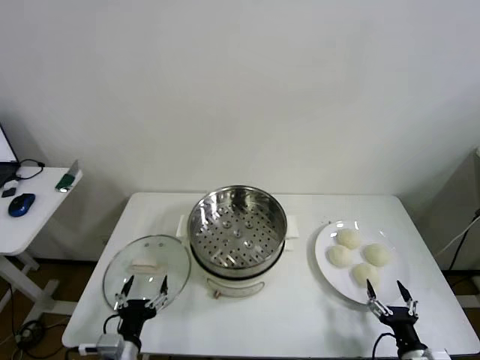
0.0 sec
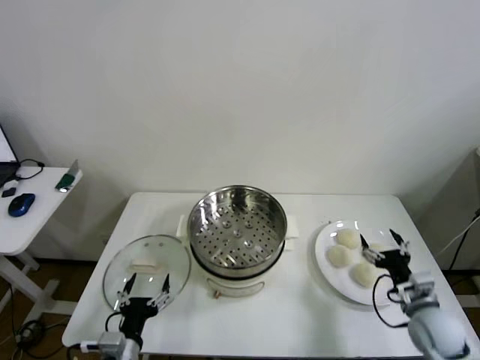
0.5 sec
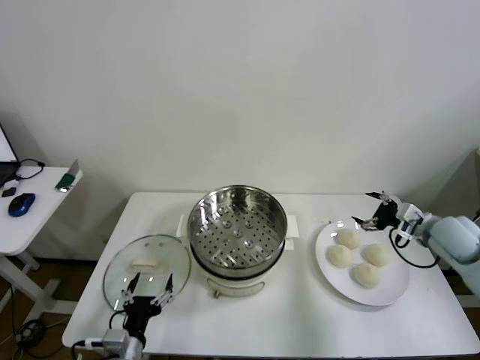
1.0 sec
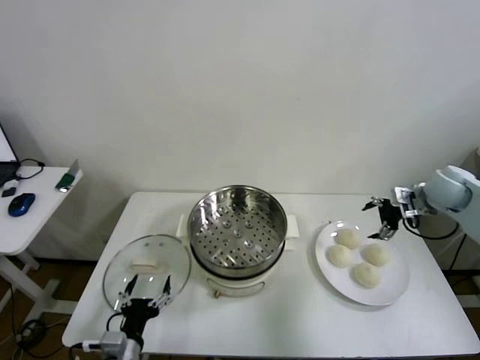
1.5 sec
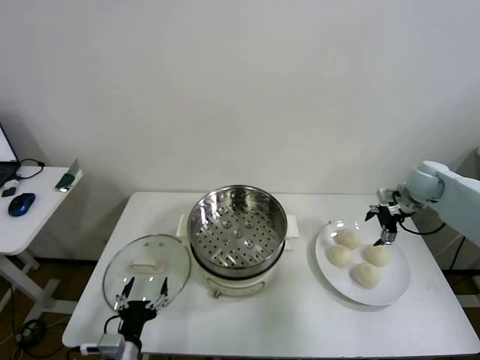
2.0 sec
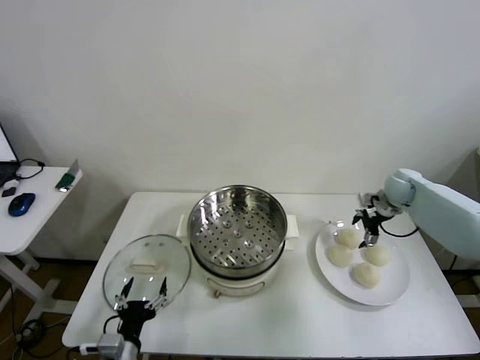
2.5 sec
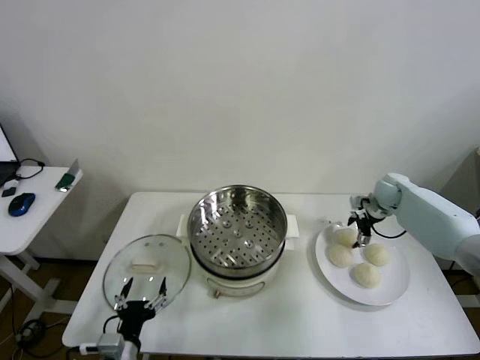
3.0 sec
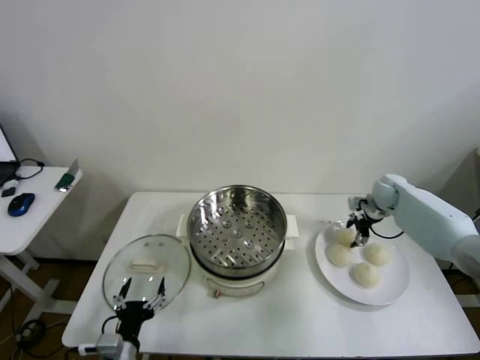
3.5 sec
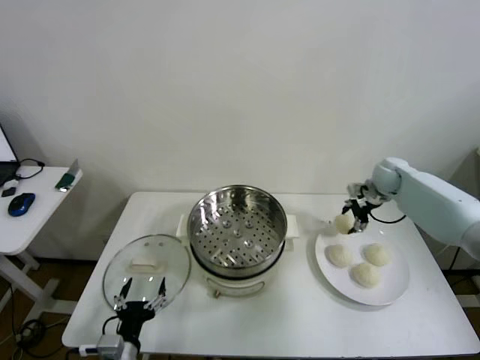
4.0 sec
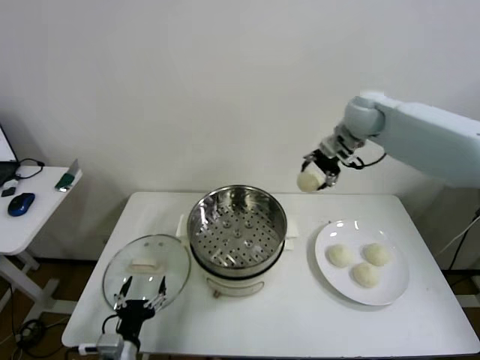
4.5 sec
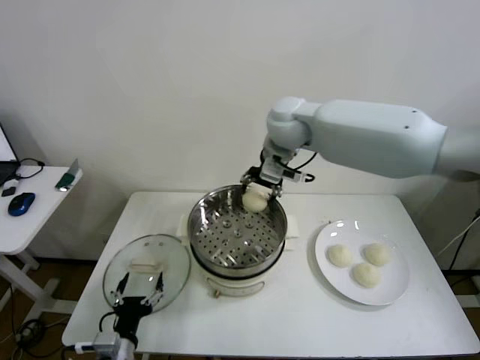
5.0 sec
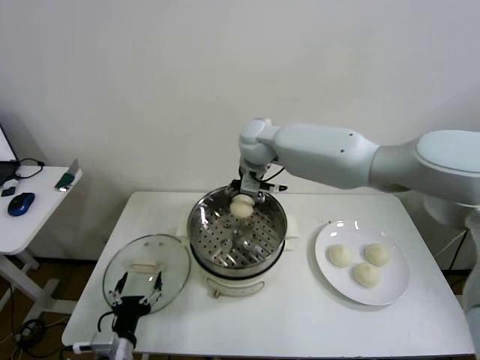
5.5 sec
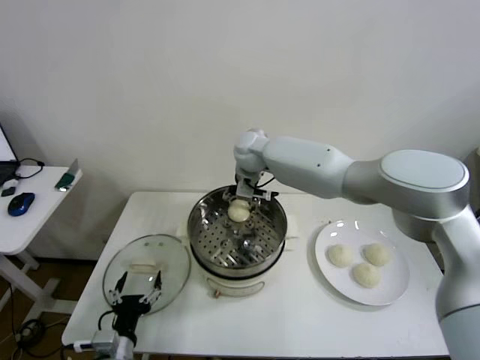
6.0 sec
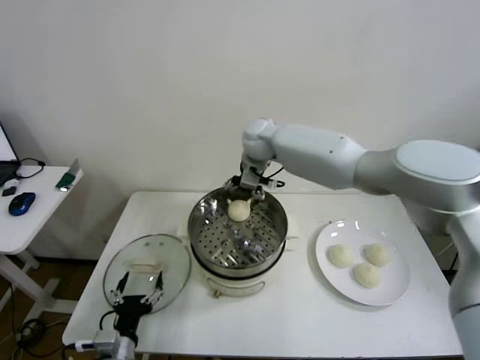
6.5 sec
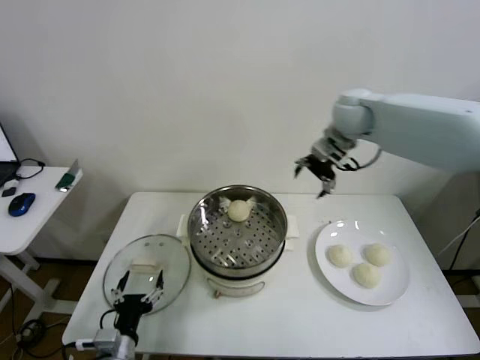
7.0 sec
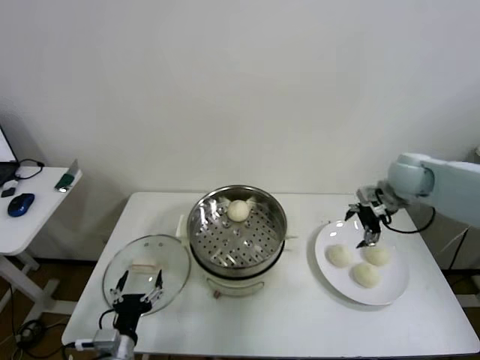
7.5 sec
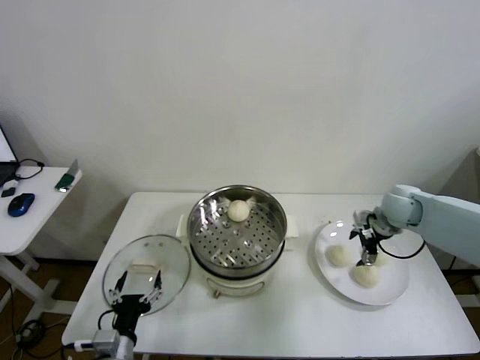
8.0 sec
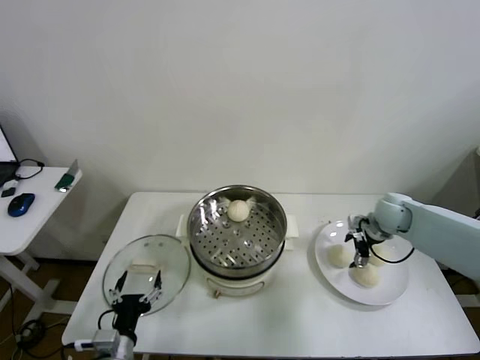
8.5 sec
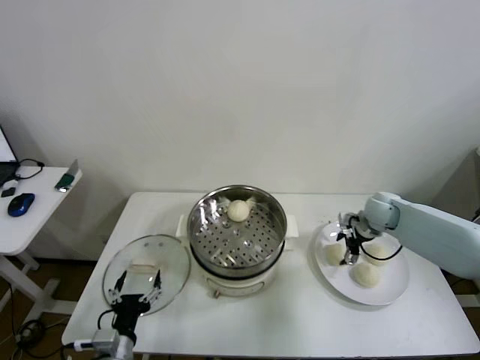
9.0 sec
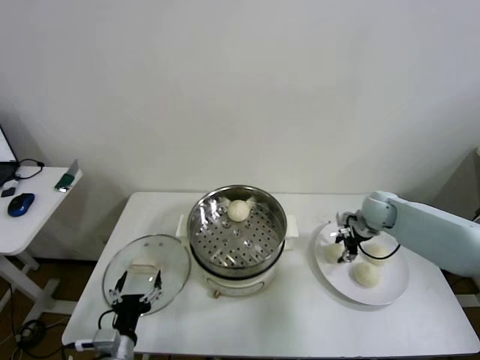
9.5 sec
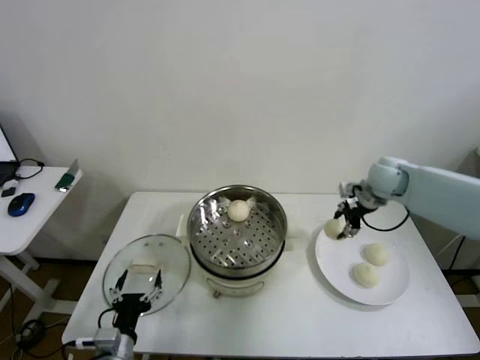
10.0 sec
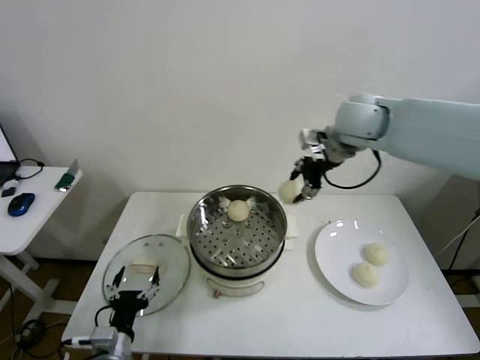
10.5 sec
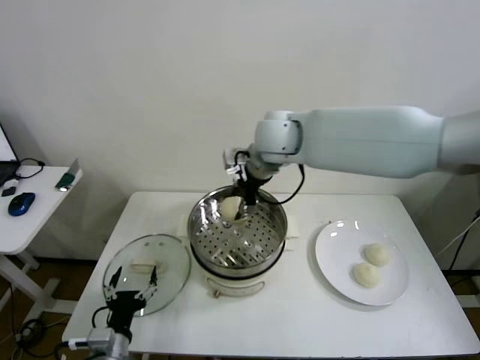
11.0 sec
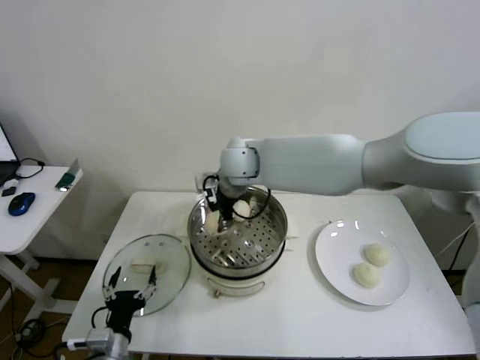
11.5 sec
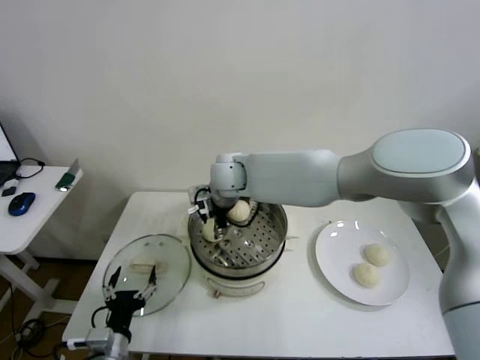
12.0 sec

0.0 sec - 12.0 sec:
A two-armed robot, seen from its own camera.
Step, 0.0 sec - 3.0 sec: Grasp the baozi in the plate with right gripper.
Step, 3.5 sec - 6.0 sec: Place the baozi on the steamer with right gripper.
Step, 7.0 sec - 9.0 sec: Grasp the baozi in the plate with right gripper.
2.0 sec - 4.0 sec: The right gripper shifts approximately 10 cm forward and to the left, goes downward and returns, about 10 cm each way, and closes.
4.0 sec - 6.0 sec: The right gripper moves to the left, about 35 cm, and opens its fingers.
6.0 sec - 8.0 sec: The right gripper heads to the right, covering approximately 35 cm.
8.0 sec - 10.0 sec: The right gripper moves about 5 cm, and closes its fingers.
10.0 sec - 12.0 sec: The right gripper shifts about 40 cm to the left.

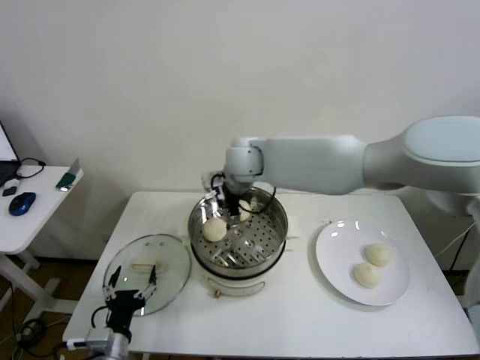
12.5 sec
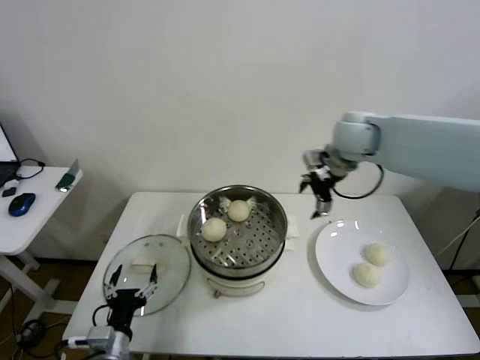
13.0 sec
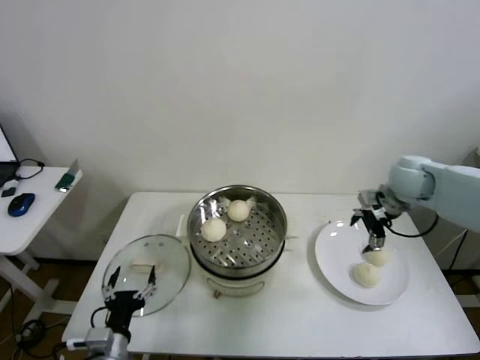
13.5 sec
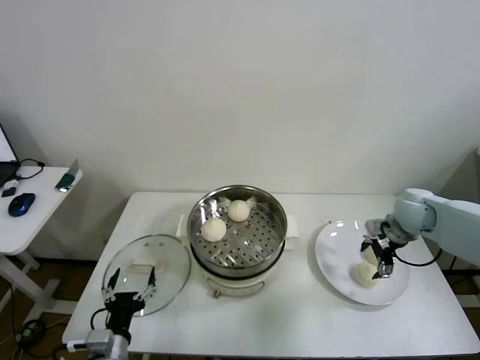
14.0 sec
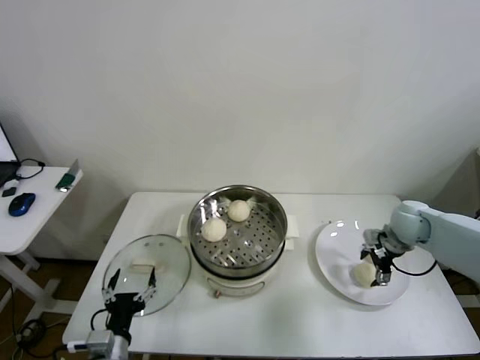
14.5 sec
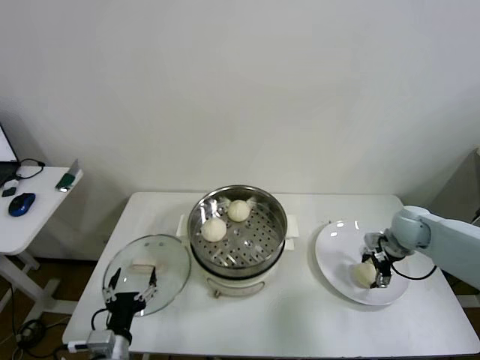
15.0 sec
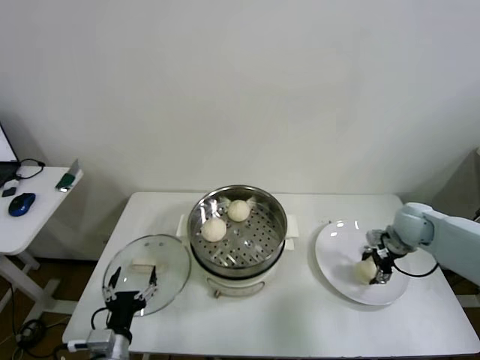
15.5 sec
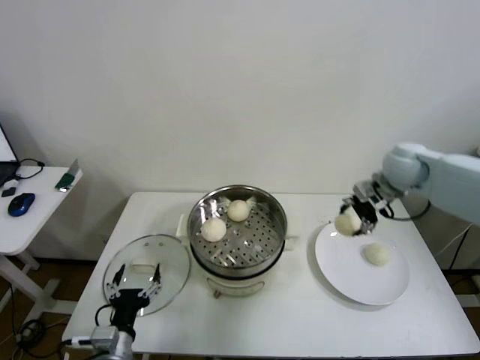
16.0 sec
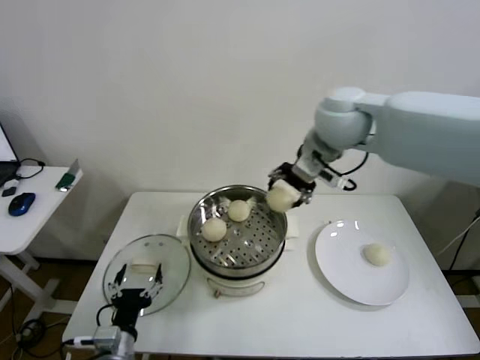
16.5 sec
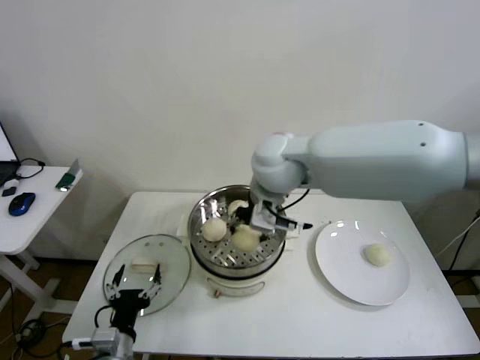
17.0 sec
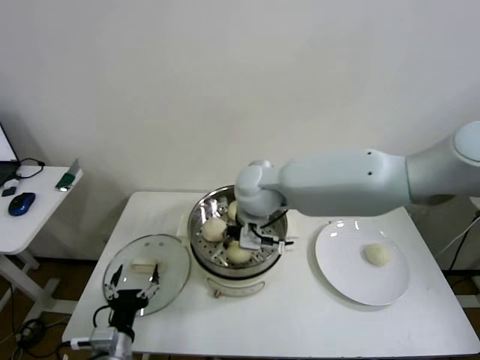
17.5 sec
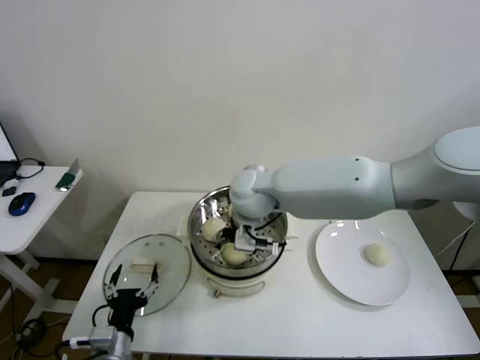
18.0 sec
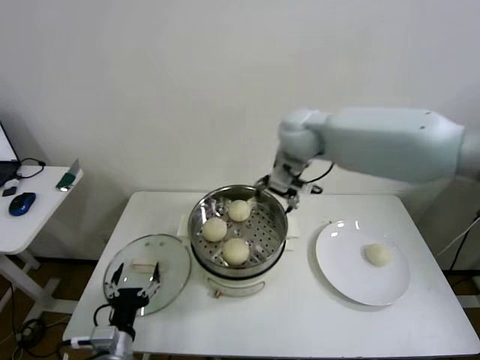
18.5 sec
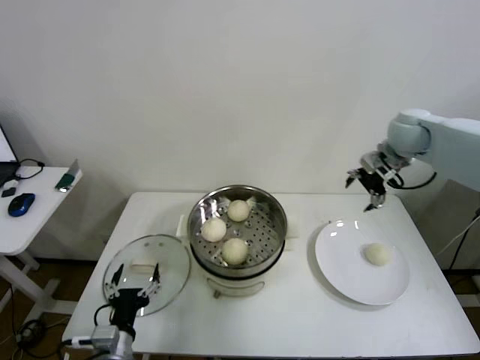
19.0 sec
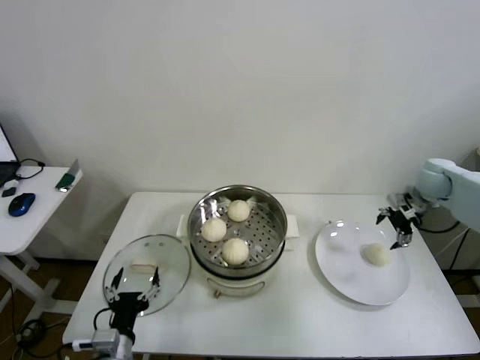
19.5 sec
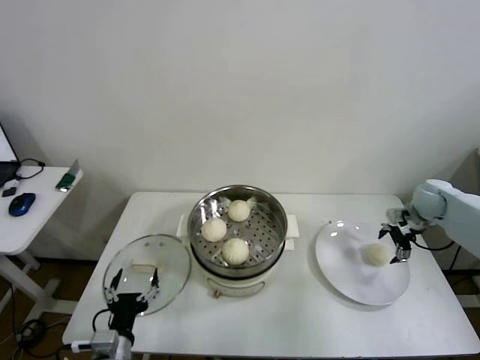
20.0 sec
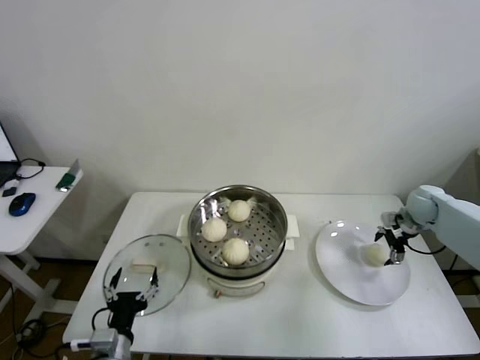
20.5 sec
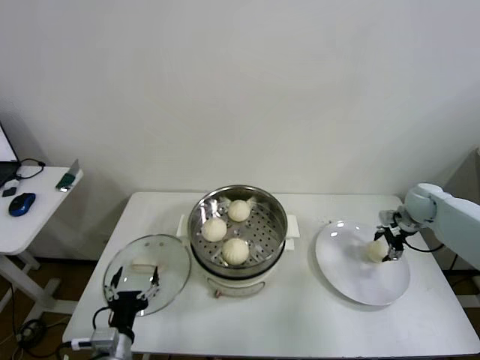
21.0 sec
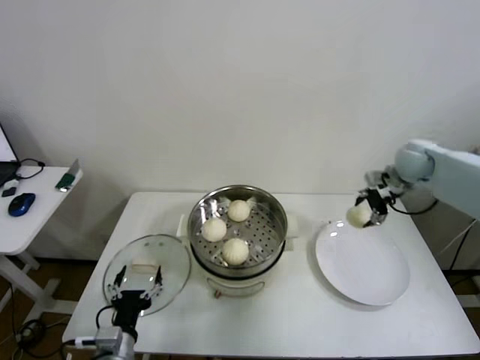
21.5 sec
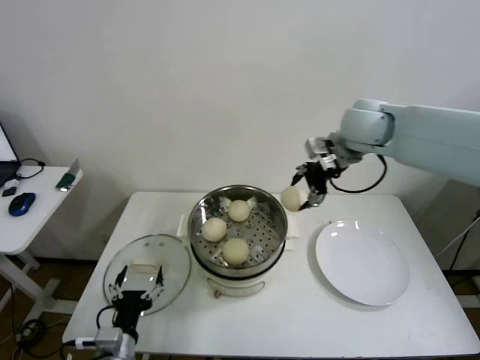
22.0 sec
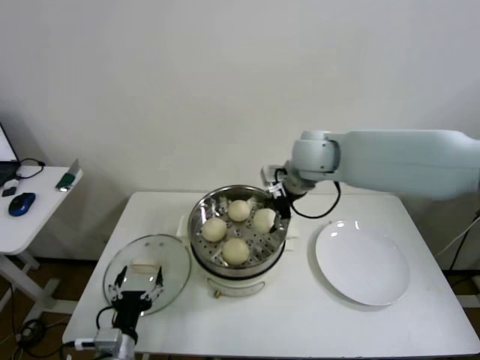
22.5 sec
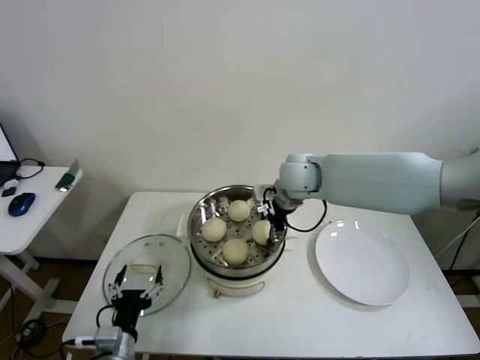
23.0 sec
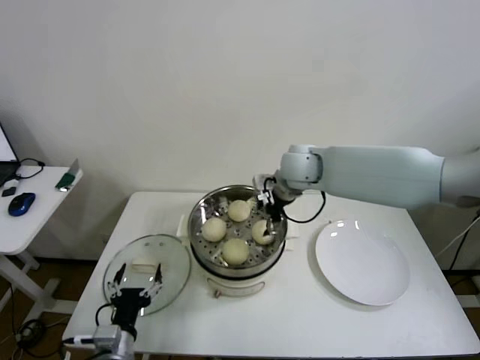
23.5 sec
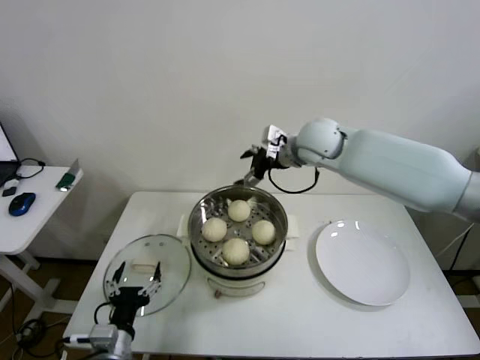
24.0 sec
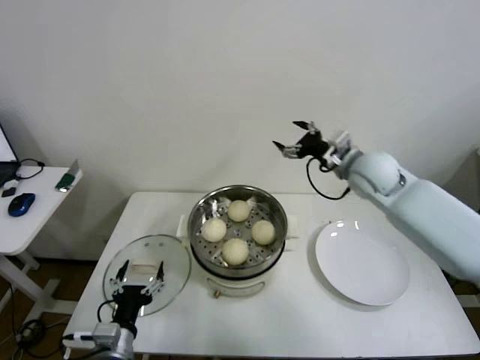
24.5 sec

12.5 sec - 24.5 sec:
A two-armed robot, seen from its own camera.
Step, 12.5 sec - 15.0 sec: Grasp the baozi in the plate with right gripper.
Step, 15.5 sec - 18.0 sec: Place the baozi on the steamer with right gripper.
Step, 18.5 sec - 20.5 sec: Grasp the baozi in the plate with right gripper.
Step, 21.0 sec - 23.0 sec: Place the baozi on the steamer with right gripper.
12.5 sec - 14.5 sec: The right gripper shifts approximately 40 cm to the right.
14.5 sec - 16.5 sec: The right gripper moves upward and to the left, some 35 cm, and closes up.
16.5 sec - 18.5 sec: The right gripper is displaced to the left and downward by some 10 cm, and opens up.
18.5 sec - 20.5 sec: The right gripper moves to the right and downward, some 40 cm.
20.5 sec - 22.5 sec: The right gripper moves to the left and upward, some 40 cm, and closes.
22.5 sec - 24.5 sec: The right gripper is displaced to the right and downward by about 15 cm, and opens up.

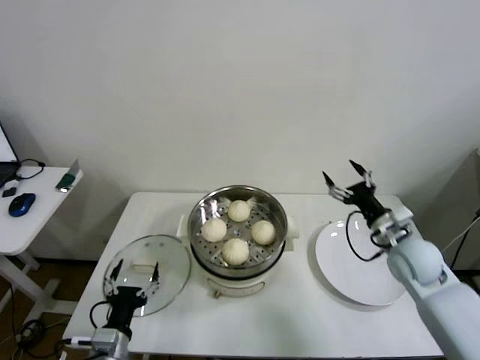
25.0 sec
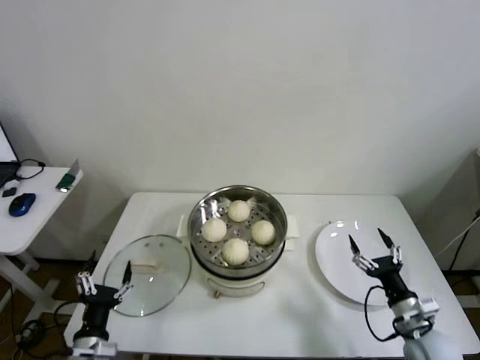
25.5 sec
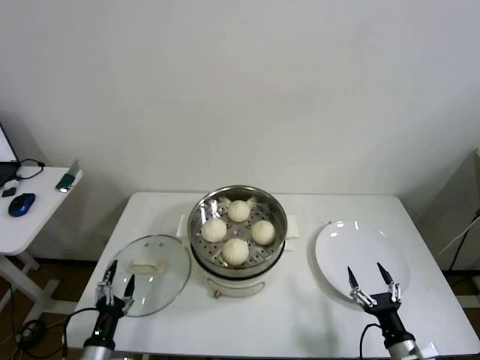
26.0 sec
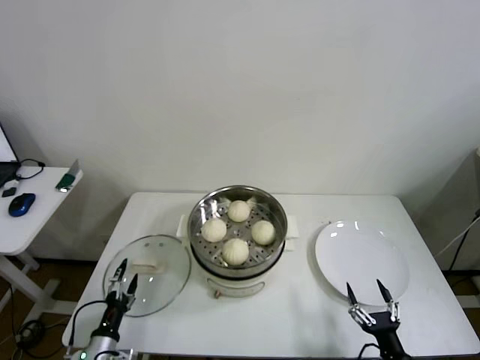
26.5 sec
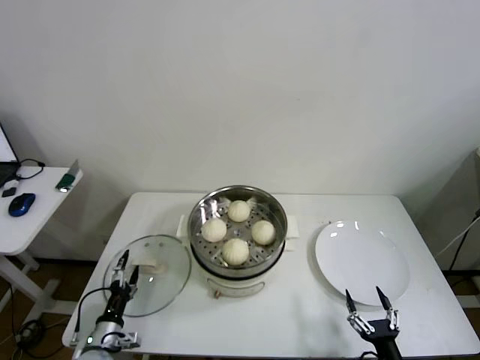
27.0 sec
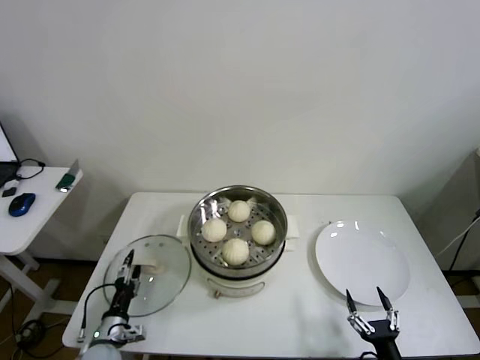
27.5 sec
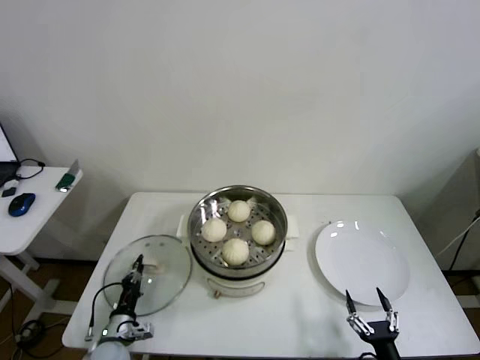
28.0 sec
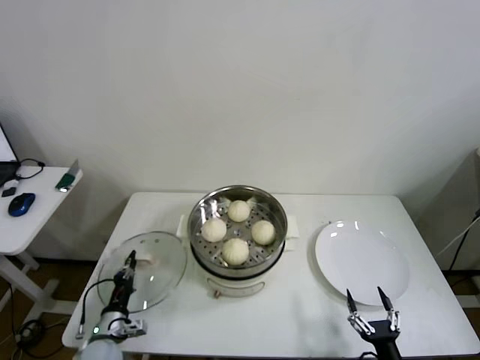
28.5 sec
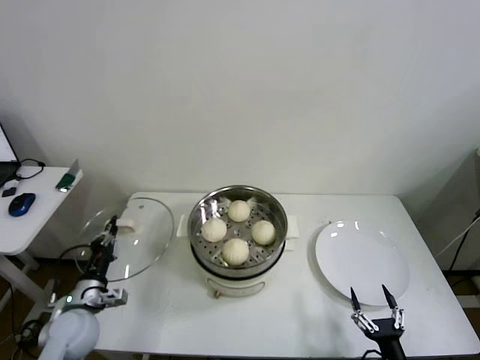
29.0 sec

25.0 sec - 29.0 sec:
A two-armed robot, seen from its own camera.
Step, 25.0 sec - 27.5 sec: Grasp the pot lid with left gripper.
25.0 sec - 27.0 sec: The left gripper heads downward and to the left, covering approximately 15 cm; the right gripper is displaced backward and downward by approximately 35 cm.
27.0 sec - 29.0 sec: The left gripper travels upward by roughly 10 cm, and closes its fingers.
